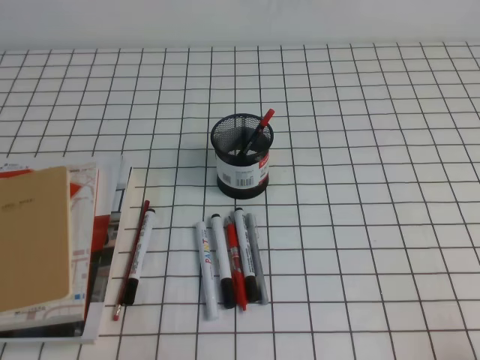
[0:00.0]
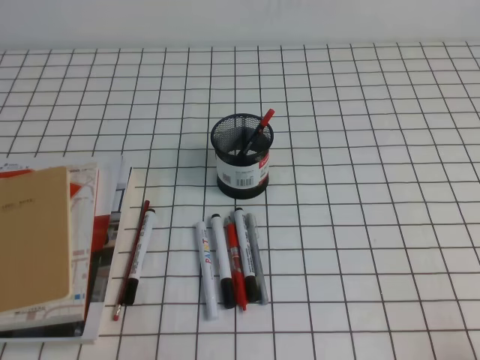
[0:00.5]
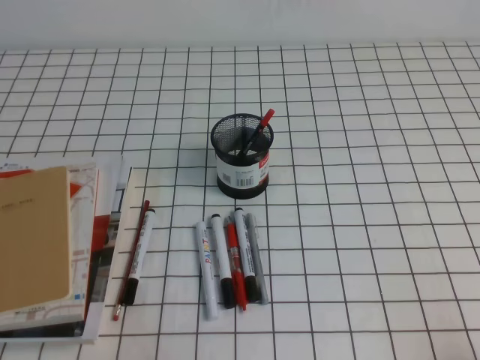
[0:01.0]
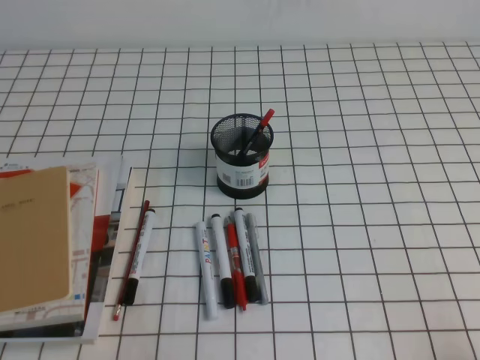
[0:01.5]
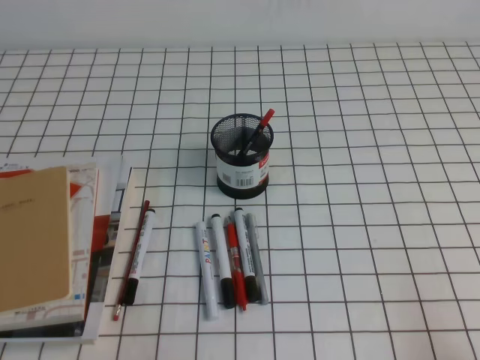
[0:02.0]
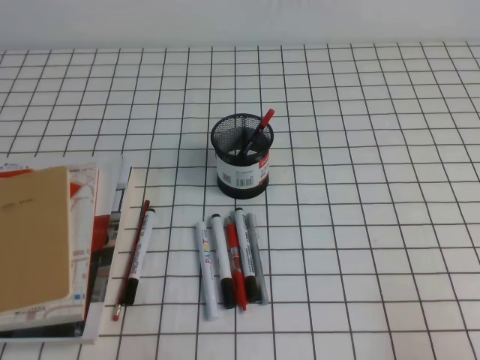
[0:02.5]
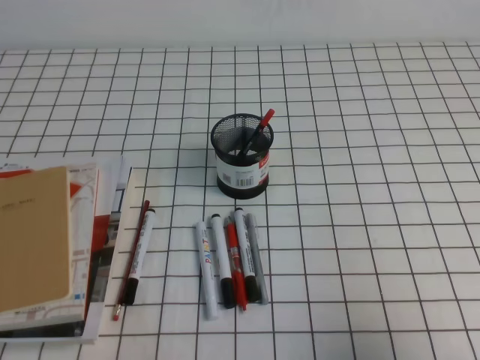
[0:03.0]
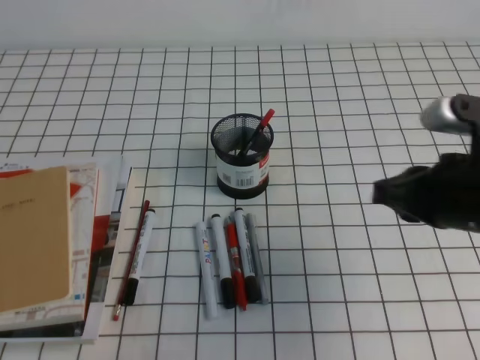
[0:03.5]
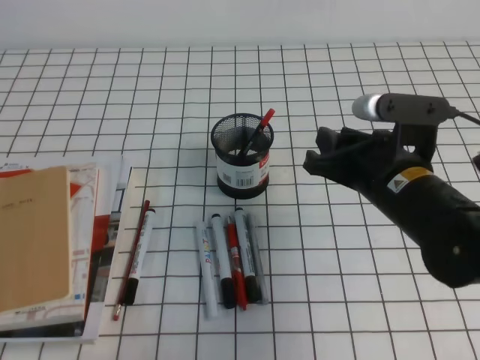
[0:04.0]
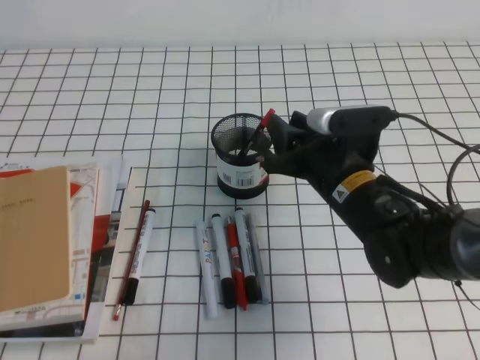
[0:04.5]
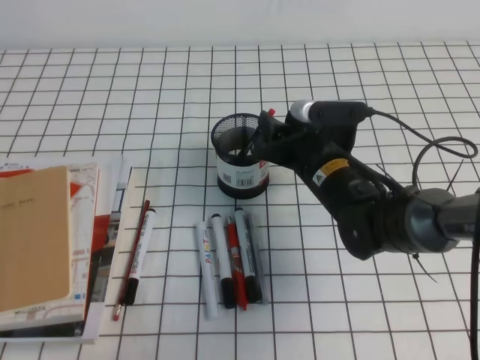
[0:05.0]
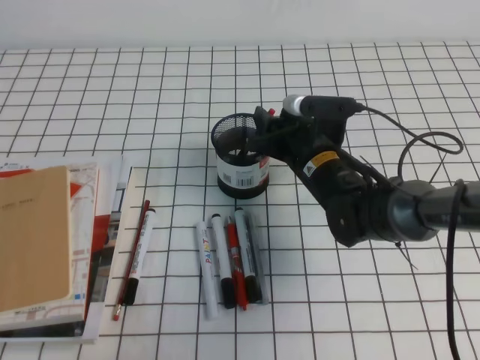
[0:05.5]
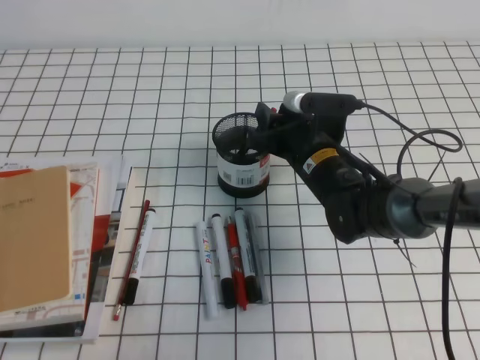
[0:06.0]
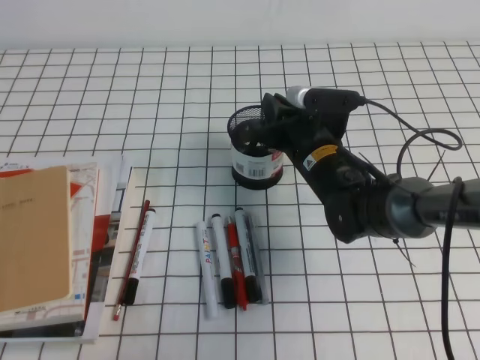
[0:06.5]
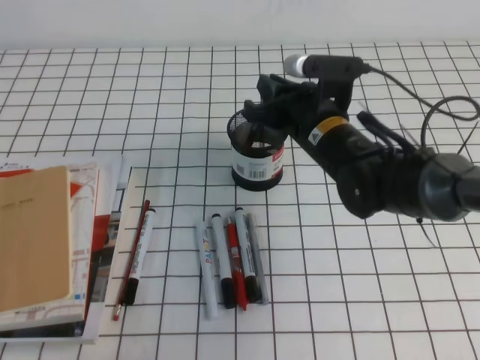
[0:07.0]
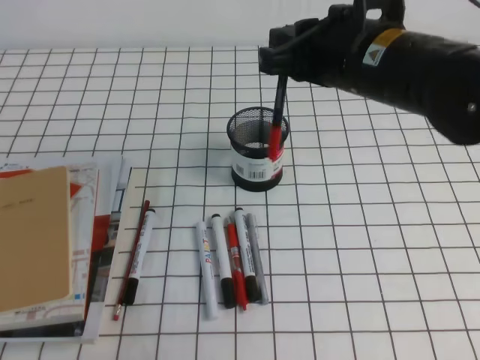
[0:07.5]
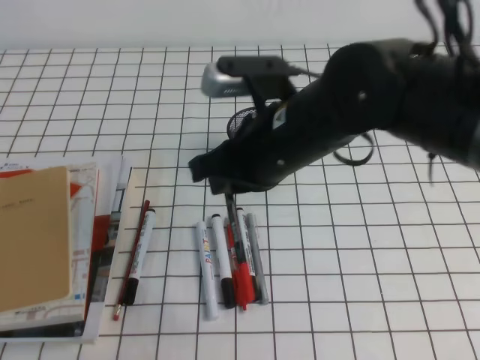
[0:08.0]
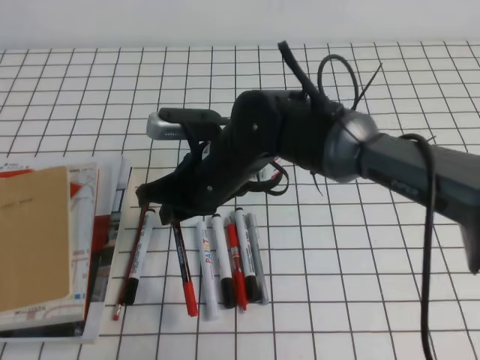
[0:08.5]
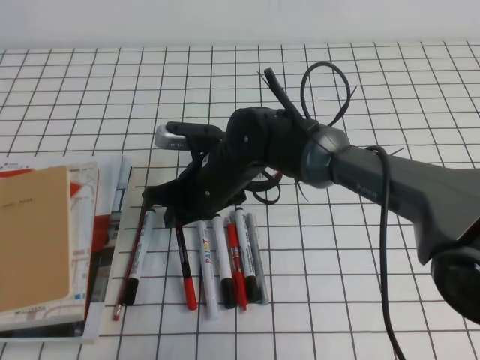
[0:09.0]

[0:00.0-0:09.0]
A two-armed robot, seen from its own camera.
0:02.0 to 0:04.5: The right gripper shifts some 35 cm forward and to the left, and opens its fingers.
0:04.5 to 0:07.0: The right gripper goes about 5 cm forward, and closes.
0:07.0 to 0:09.0: The right gripper moves to the left, about 10 cm, and goes upward and returns, some 10 cm each way.

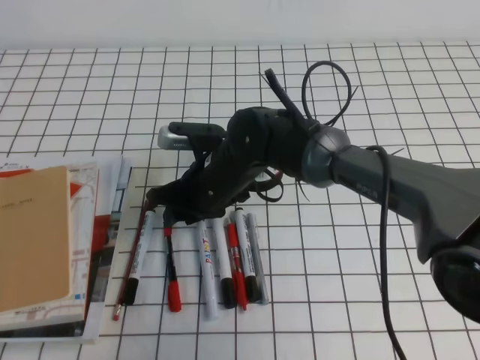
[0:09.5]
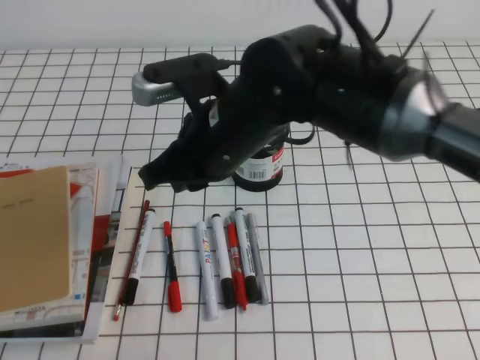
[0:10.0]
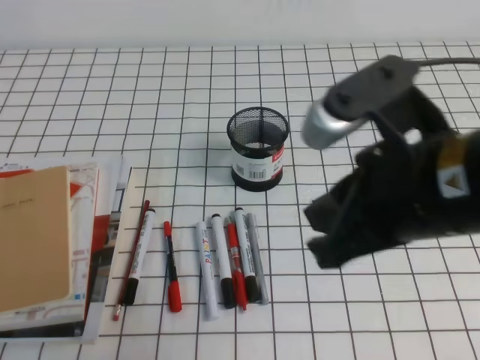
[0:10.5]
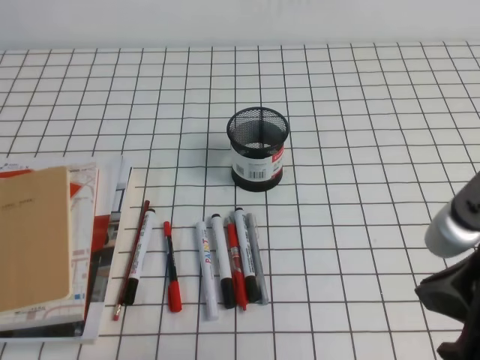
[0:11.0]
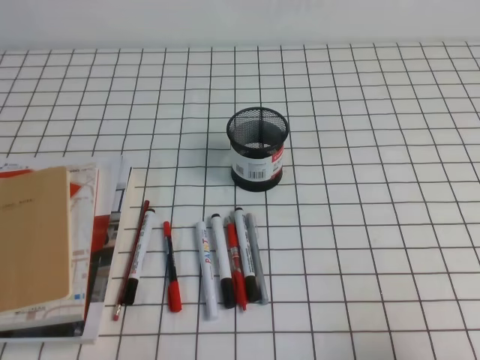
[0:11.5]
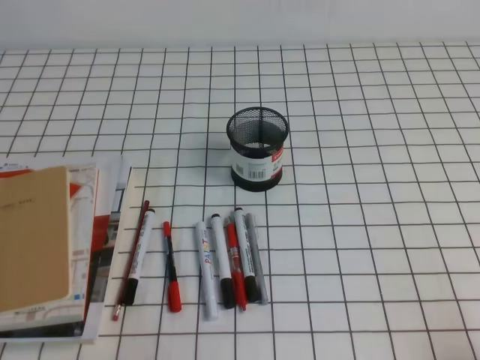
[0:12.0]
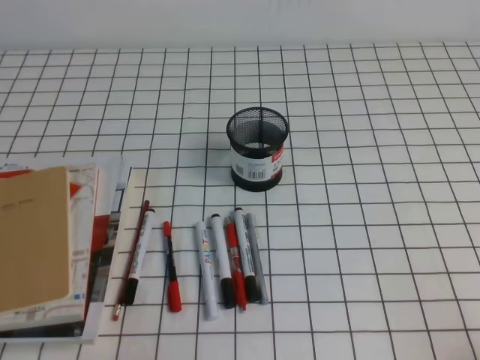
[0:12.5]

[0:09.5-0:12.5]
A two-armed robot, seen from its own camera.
Step, 0:09.5 to 0:12.5: Pick up the pen from the pen holder.
0:09.5 to 0:11.0: The right gripper goes about 35 cm backward, to the right and upward, and closes.
0:11.0 to 0:12.5: The right gripper travels downward, to the right and backward by some 20 cm.
